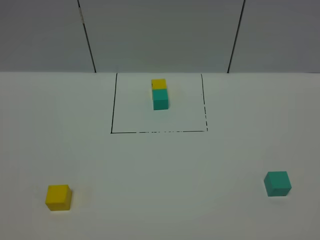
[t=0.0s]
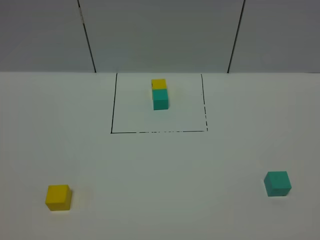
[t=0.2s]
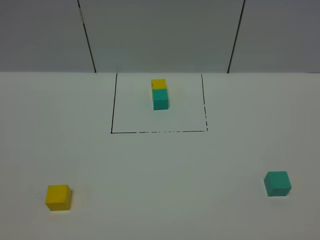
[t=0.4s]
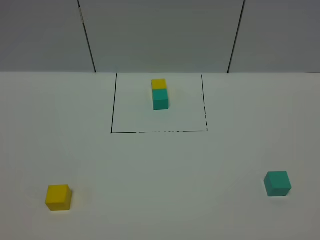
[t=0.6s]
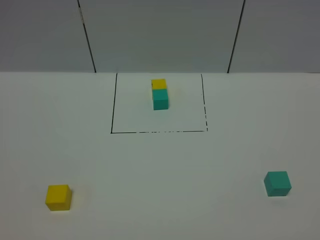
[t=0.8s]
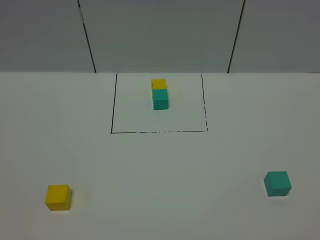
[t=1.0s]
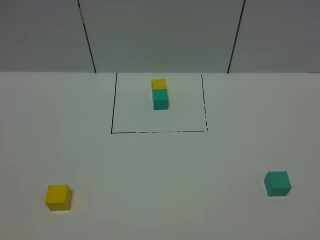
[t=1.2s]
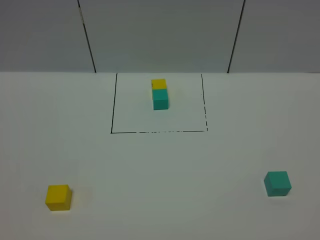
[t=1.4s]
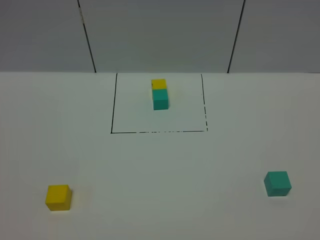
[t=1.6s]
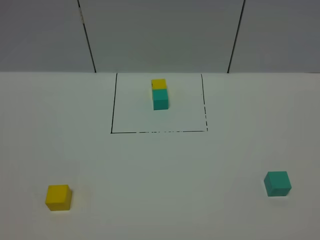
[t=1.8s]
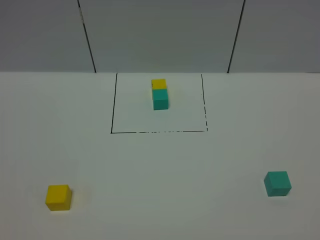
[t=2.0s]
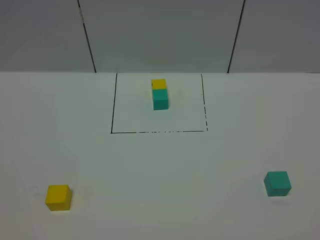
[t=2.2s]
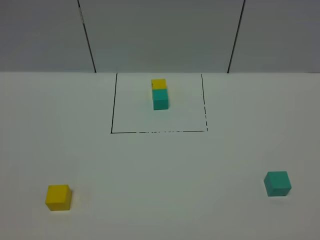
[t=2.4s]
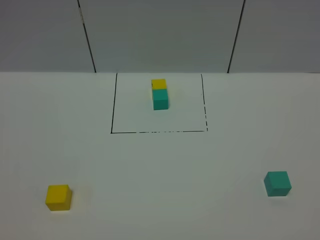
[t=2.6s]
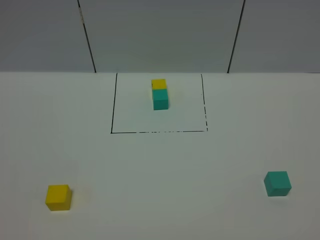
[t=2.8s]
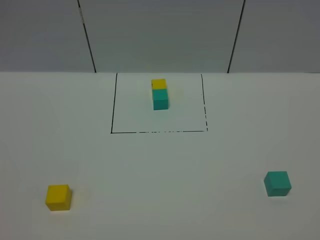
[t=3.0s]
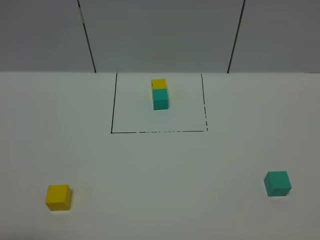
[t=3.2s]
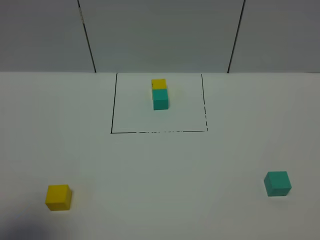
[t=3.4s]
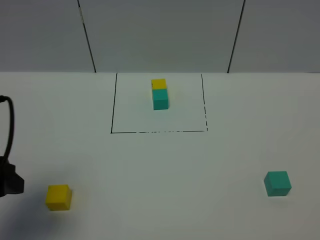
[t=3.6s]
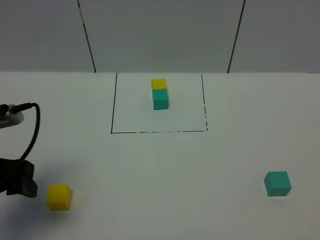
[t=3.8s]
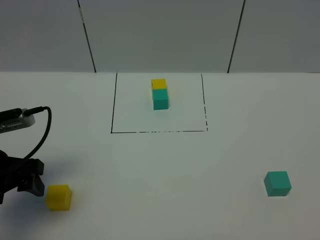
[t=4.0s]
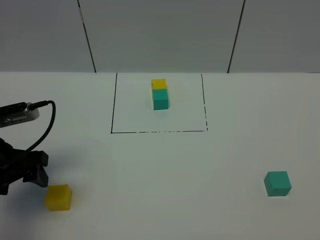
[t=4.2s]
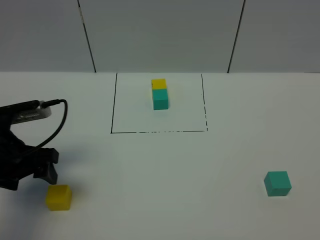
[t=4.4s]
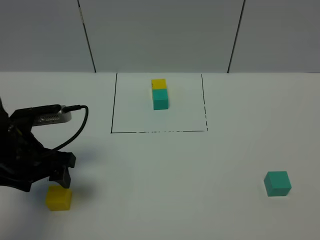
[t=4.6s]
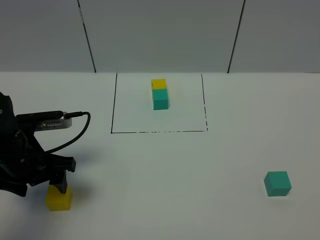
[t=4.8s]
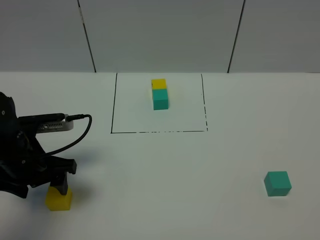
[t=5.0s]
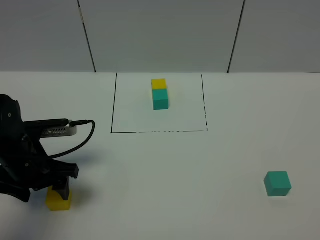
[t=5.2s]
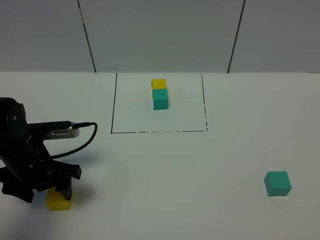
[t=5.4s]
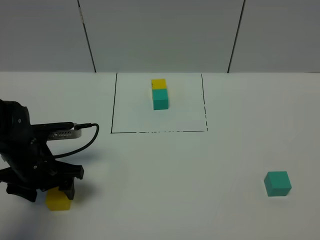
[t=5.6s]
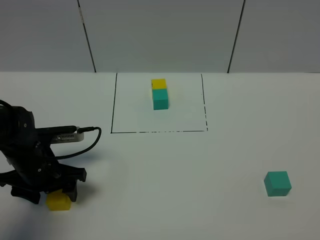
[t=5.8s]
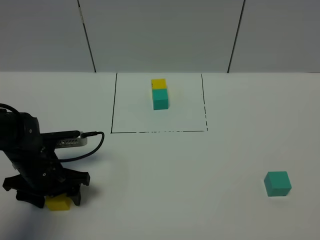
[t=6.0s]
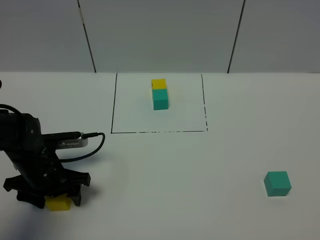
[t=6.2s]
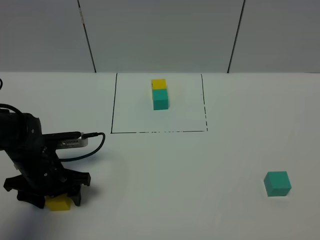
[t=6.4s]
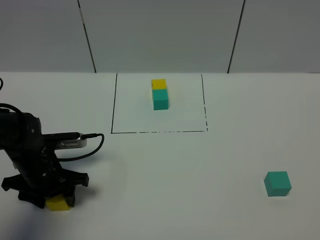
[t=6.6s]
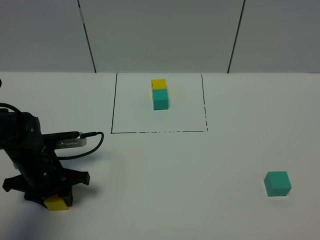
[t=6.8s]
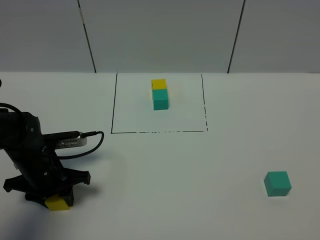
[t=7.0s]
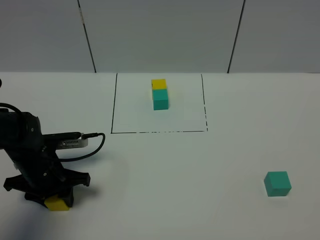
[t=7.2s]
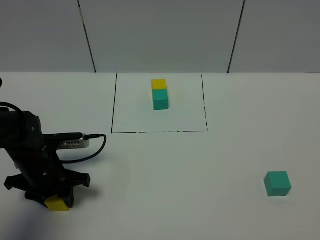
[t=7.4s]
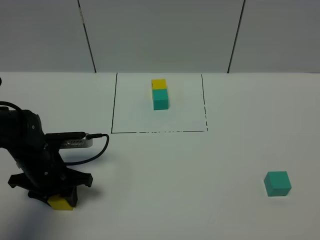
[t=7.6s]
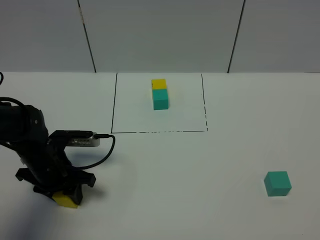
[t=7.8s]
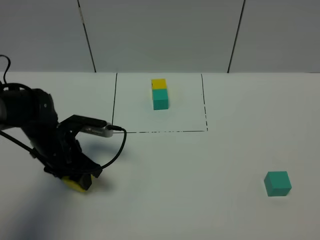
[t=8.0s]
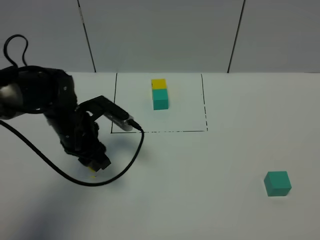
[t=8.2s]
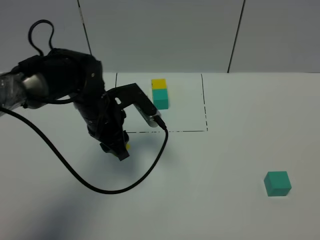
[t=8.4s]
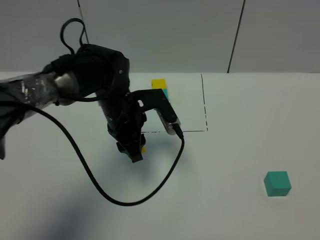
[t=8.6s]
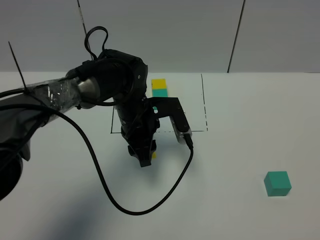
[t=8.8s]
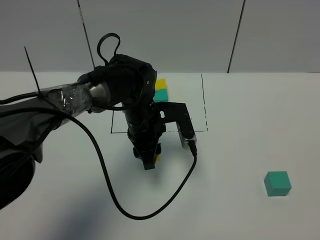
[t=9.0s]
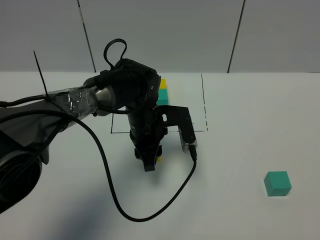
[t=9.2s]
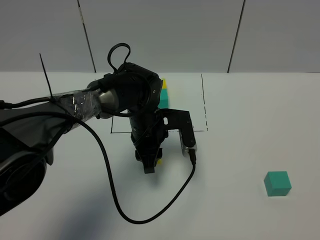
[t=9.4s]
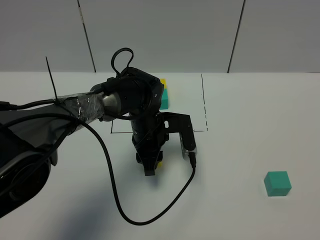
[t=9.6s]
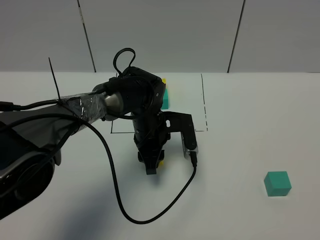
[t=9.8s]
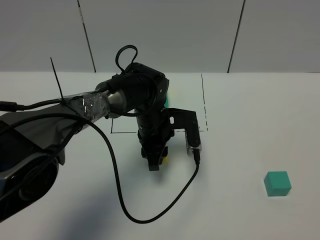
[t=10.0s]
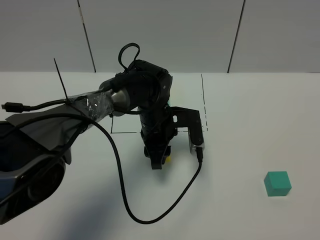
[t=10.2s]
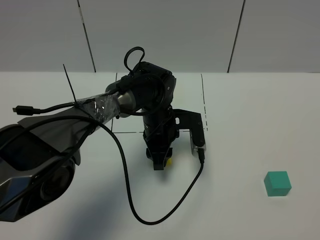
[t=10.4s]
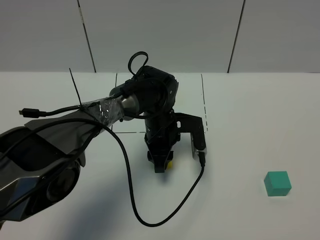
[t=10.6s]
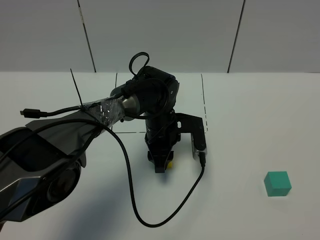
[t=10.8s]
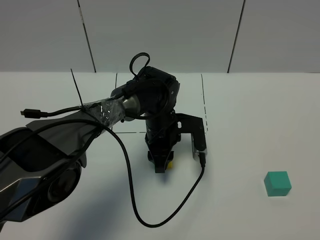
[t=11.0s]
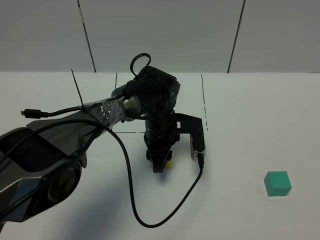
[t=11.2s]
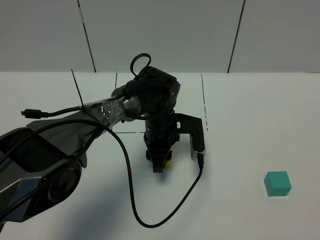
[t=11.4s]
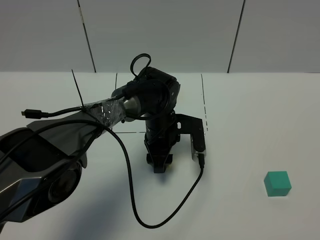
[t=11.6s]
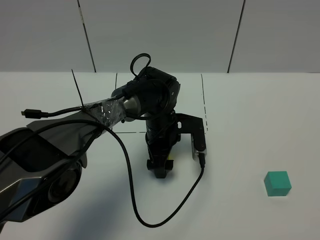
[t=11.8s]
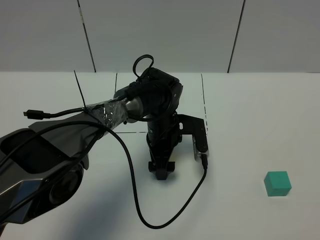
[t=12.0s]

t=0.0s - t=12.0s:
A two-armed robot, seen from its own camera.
Task of the whole recording: According to the building block template in front, assemble the scattered blocks together.
t=0.0s - t=1.6s: The two grippers keep their place.
t=3.0s - t=4.4s: The left gripper travels forward by some 25 cm.
t=4.4s - t=6.0s: The left gripper goes approximately 10 cm downward.
t=6.0s - t=7.6s: The left gripper closes its fingers.
t=7.6s - t=9.0s: The left gripper moves to the right and forward, roughly 20 cm.
t=10.4s - t=12.0s: The left gripper opens up.

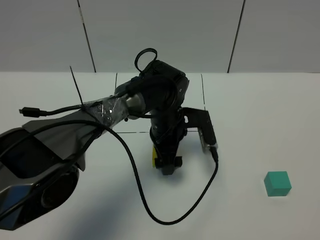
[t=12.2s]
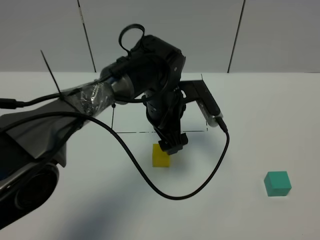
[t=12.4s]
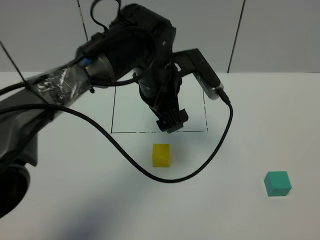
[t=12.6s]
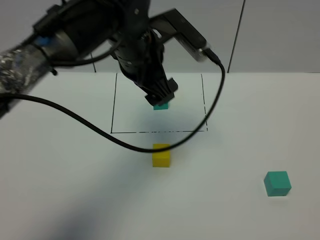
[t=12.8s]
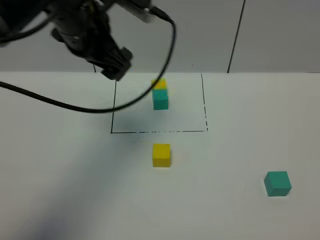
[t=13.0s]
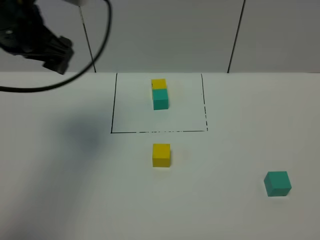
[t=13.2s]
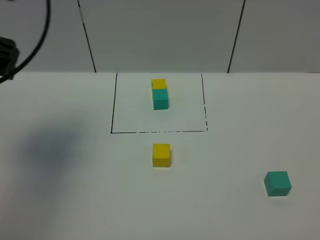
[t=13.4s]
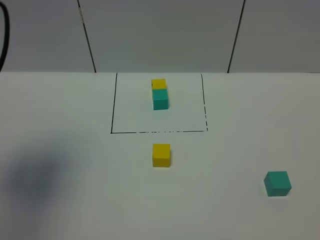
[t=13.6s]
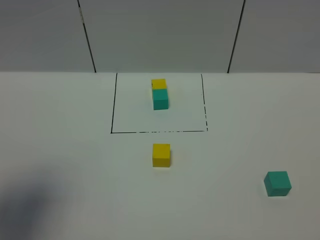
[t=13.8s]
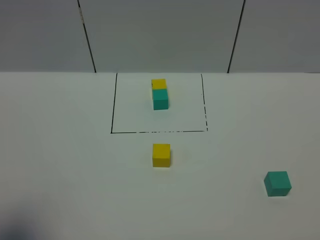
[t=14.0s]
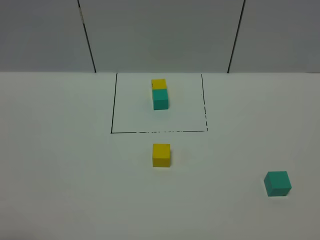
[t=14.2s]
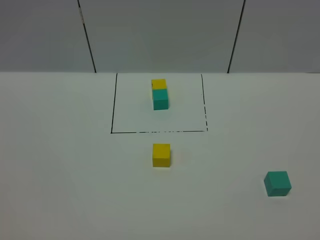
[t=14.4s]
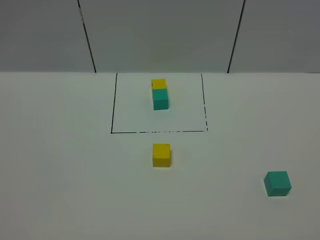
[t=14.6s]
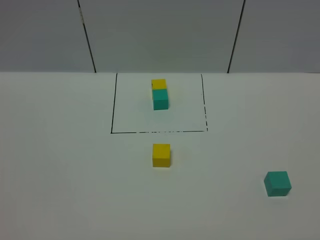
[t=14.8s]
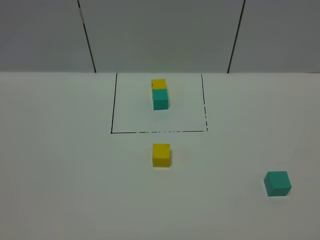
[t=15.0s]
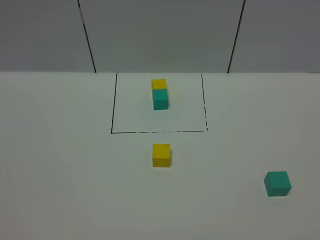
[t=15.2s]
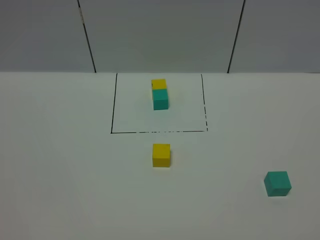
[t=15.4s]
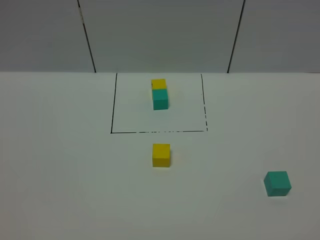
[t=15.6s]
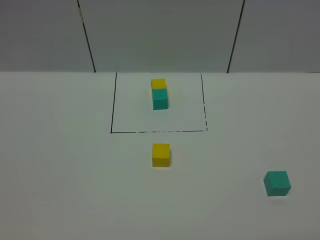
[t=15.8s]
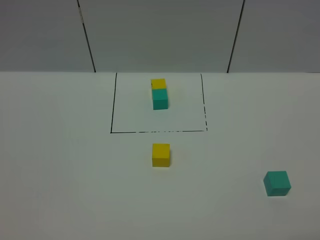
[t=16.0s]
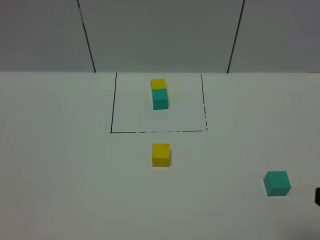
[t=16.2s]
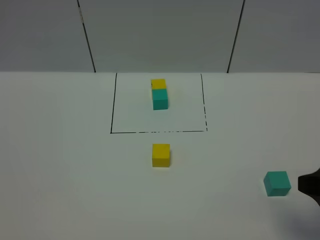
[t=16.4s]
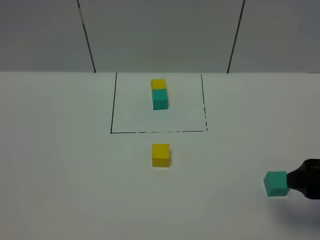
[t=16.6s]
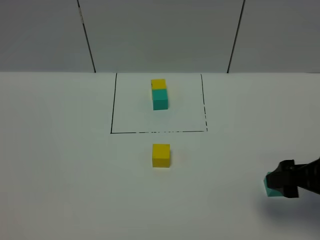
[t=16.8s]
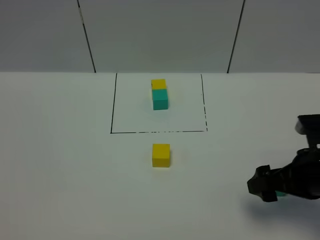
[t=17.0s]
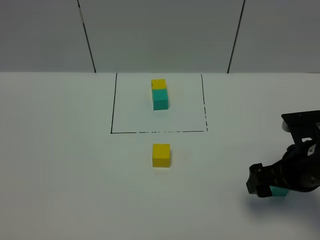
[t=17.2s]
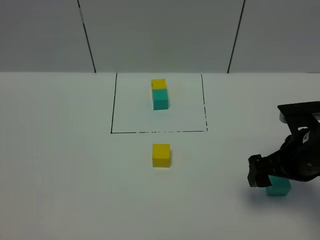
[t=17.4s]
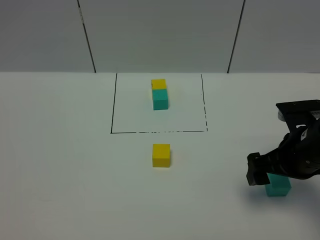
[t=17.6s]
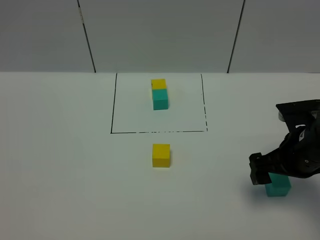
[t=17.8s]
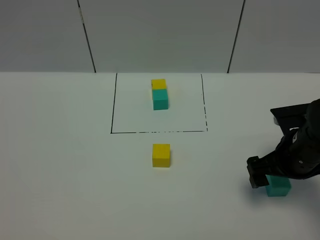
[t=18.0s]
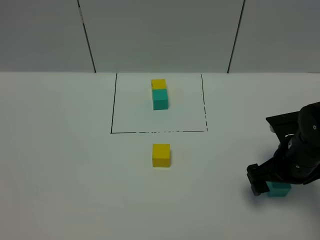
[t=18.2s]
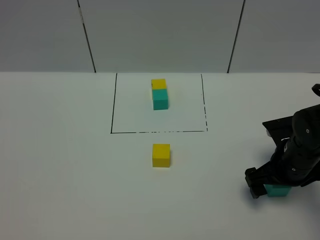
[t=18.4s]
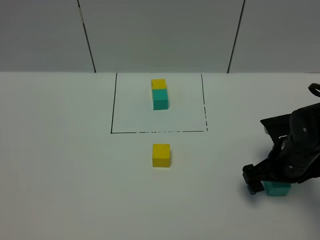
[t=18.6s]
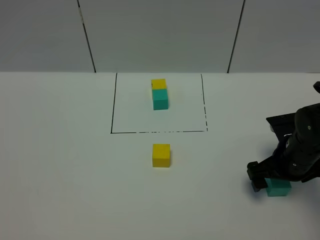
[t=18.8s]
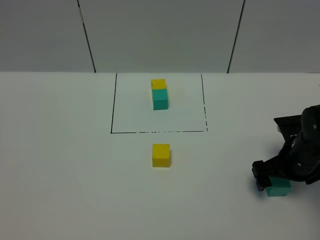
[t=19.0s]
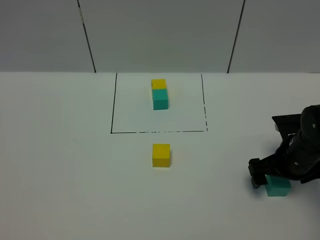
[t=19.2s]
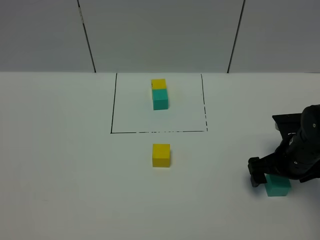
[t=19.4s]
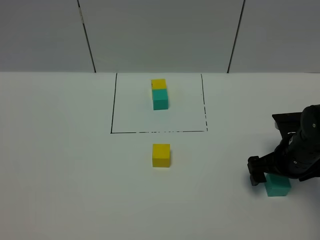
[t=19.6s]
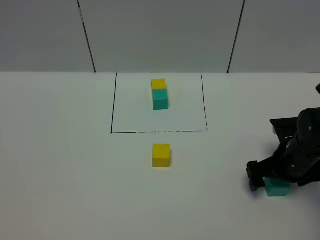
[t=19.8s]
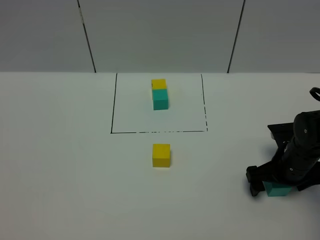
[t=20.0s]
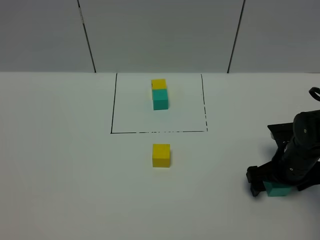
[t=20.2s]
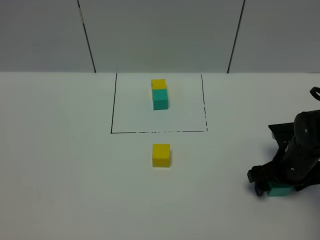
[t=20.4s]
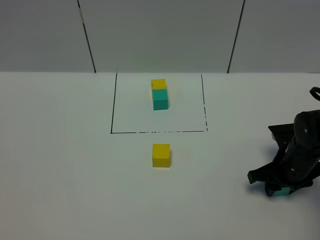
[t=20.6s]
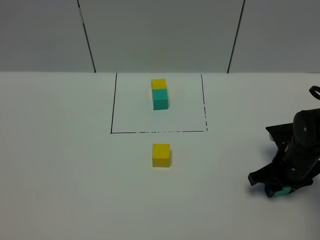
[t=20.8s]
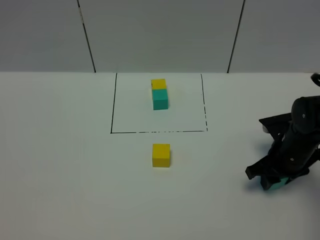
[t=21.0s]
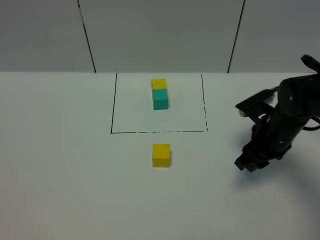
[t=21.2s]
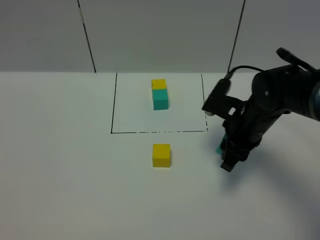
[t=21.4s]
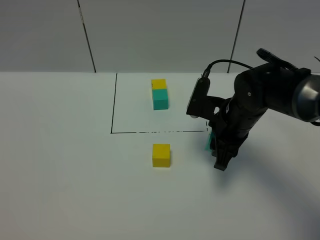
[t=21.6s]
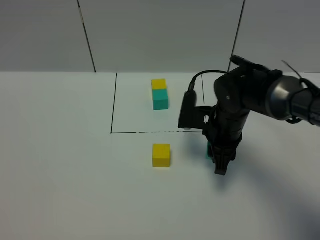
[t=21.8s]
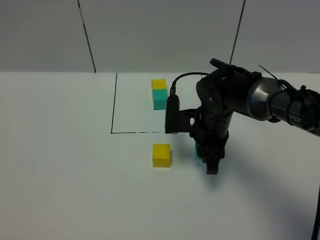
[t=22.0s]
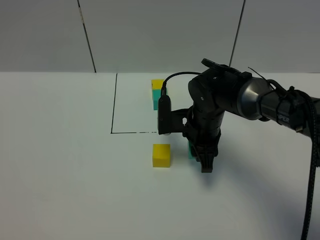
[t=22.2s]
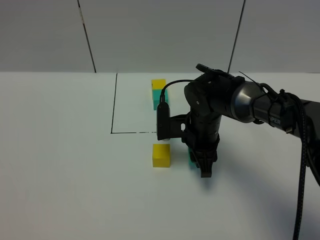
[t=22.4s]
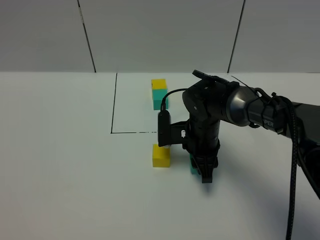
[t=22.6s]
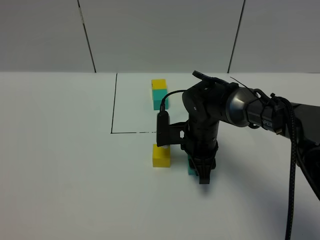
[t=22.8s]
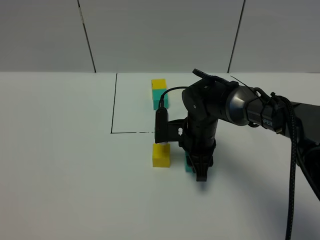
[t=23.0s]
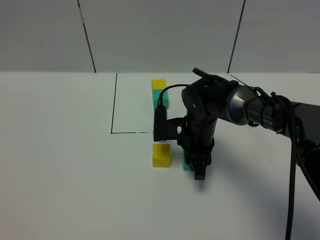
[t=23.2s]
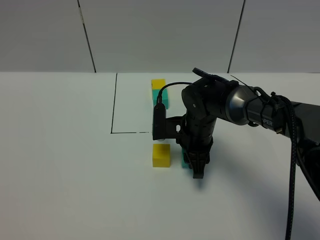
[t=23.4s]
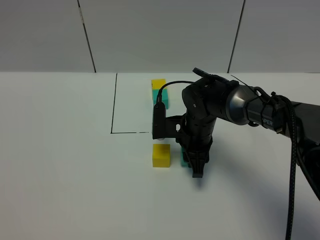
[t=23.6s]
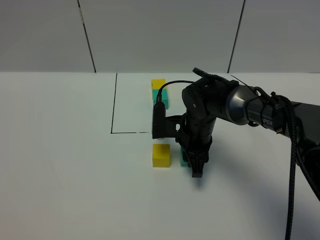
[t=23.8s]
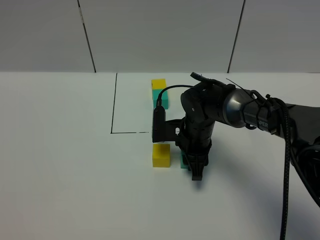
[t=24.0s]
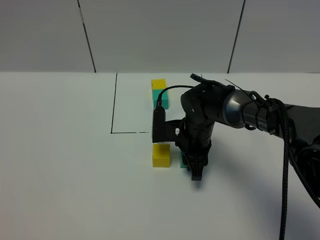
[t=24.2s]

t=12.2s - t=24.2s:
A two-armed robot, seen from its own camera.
Task of the whole recording: According to the building block template in front, assemble the scattered blocks together.
t=12.2s - t=13.8s: The left gripper moves to the left, upward and backward, roughly 40 cm.
t=13.8s - t=15.2s: The left gripper moves backward and downward, roughly 20 cm.
t=15.2s - t=16.6s: The right gripper heads forward, covering roughly 20 cm.
t=16.6s - t=18.2s: The right gripper goes about 15 cm forward, downward and to the left.
t=18.2s - t=19.8s: The right gripper shifts by roughly 5 cm.
t=19.8s - t=21.2s: The right gripper moves about 5 cm, and closes its fingers.
t=21.2s - t=22.6s: The right gripper goes approximately 15 cm to the left.
t=22.6s - t=24.2s: There are only small adjustments of the grippers.
